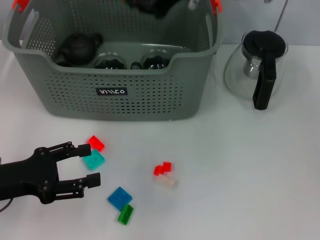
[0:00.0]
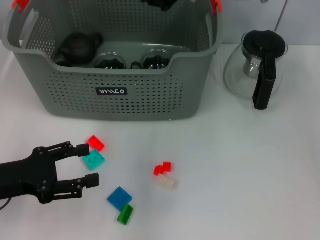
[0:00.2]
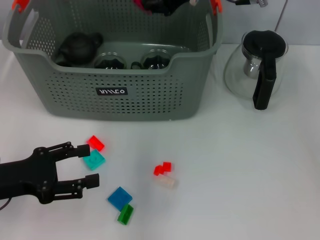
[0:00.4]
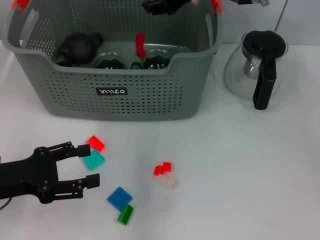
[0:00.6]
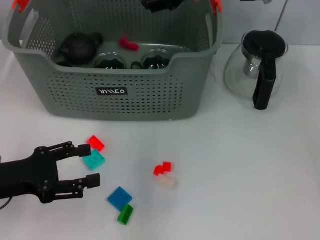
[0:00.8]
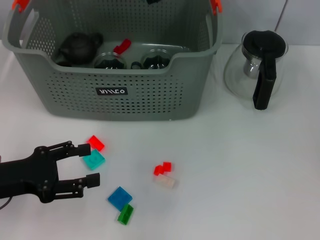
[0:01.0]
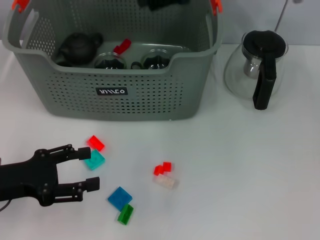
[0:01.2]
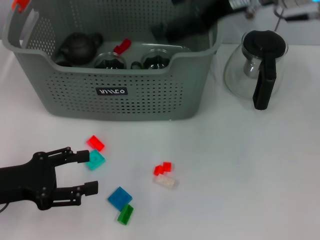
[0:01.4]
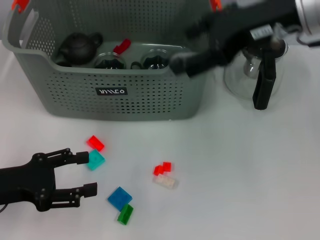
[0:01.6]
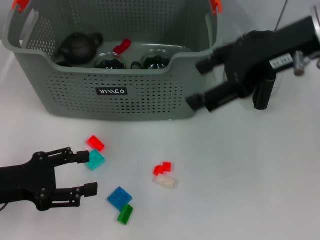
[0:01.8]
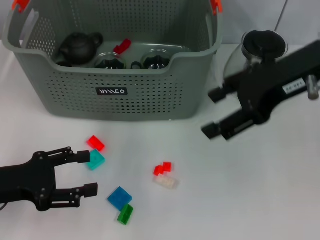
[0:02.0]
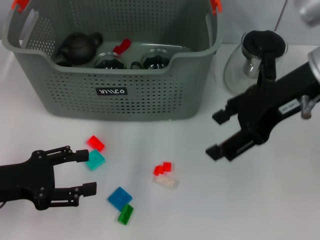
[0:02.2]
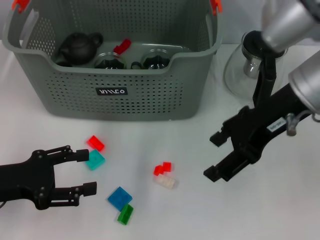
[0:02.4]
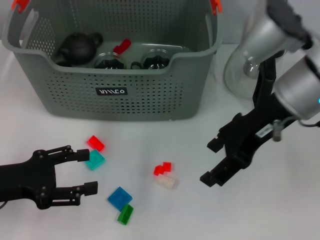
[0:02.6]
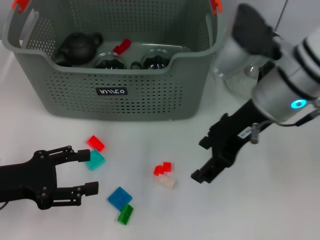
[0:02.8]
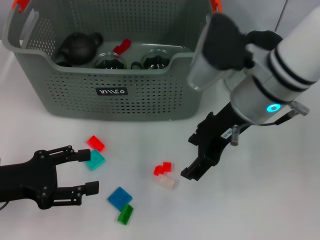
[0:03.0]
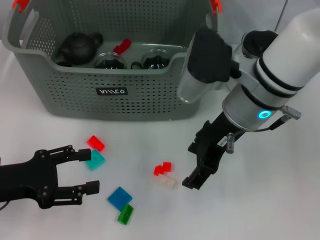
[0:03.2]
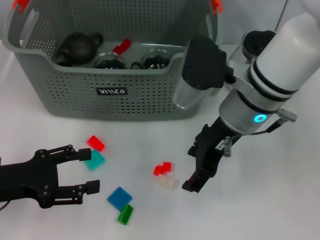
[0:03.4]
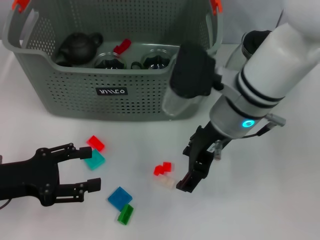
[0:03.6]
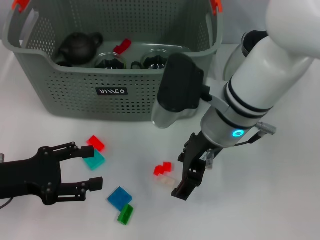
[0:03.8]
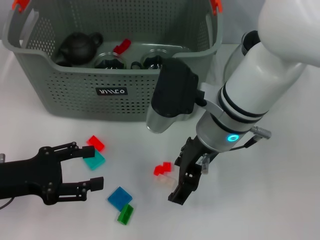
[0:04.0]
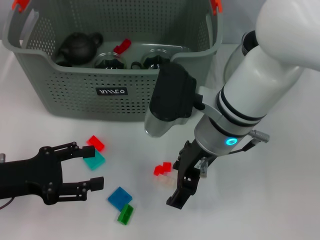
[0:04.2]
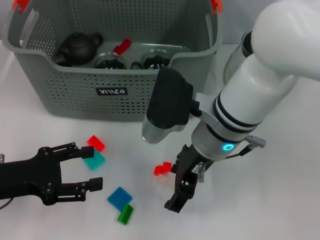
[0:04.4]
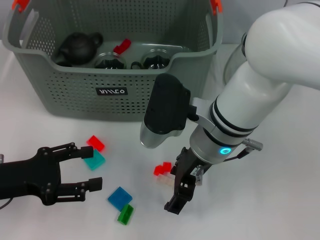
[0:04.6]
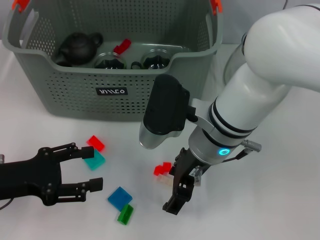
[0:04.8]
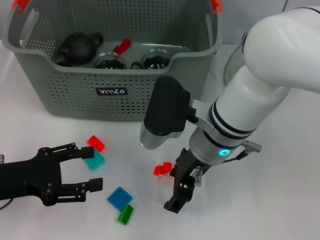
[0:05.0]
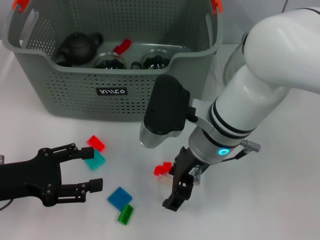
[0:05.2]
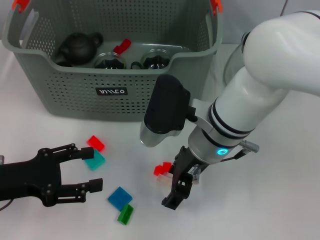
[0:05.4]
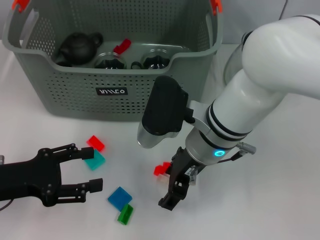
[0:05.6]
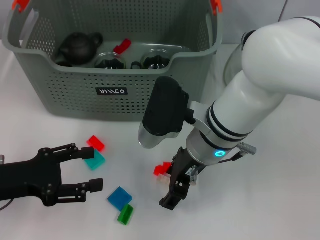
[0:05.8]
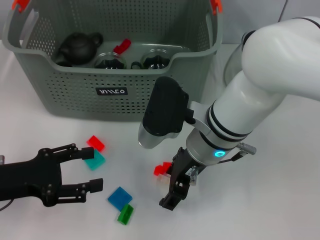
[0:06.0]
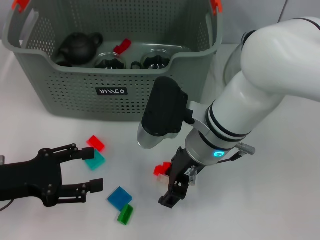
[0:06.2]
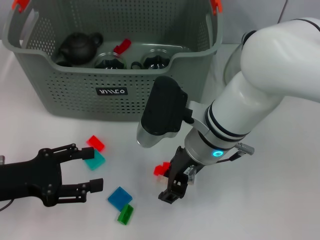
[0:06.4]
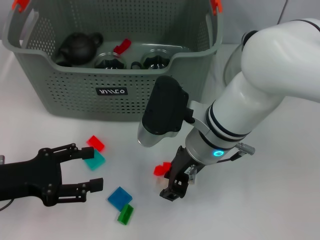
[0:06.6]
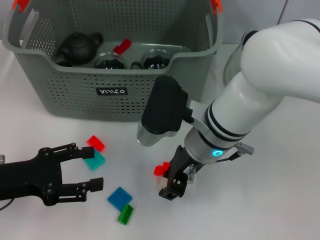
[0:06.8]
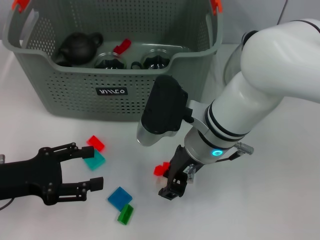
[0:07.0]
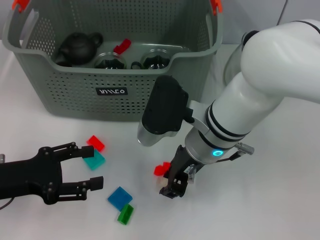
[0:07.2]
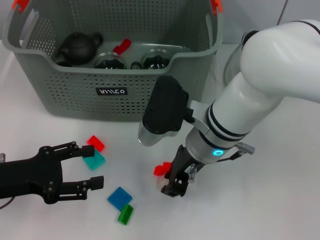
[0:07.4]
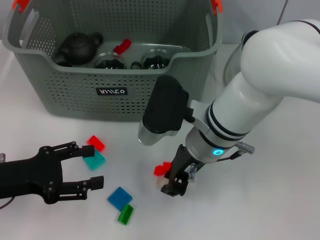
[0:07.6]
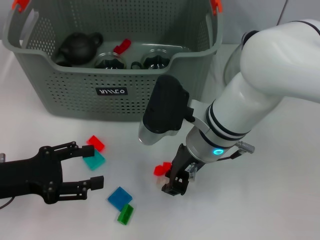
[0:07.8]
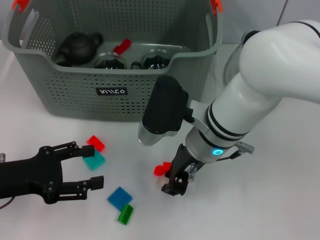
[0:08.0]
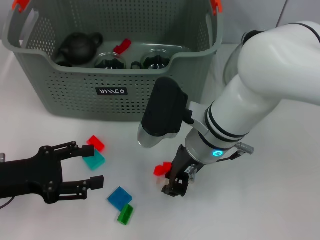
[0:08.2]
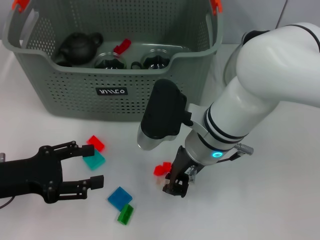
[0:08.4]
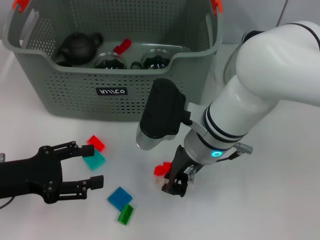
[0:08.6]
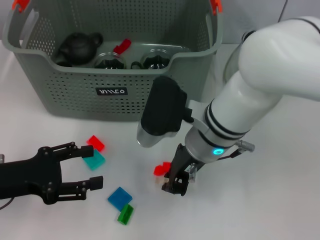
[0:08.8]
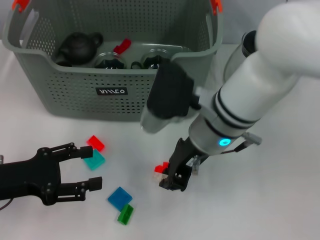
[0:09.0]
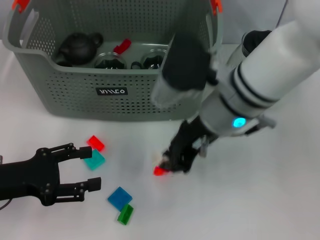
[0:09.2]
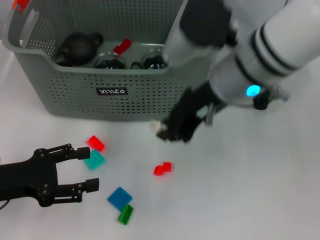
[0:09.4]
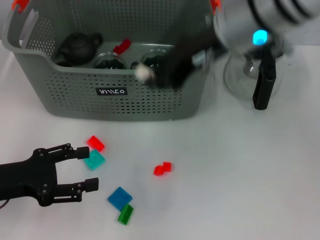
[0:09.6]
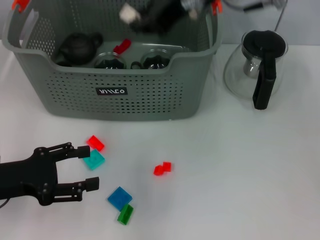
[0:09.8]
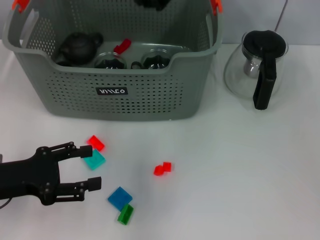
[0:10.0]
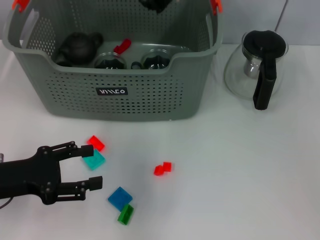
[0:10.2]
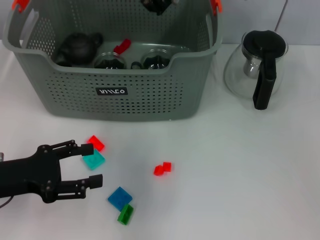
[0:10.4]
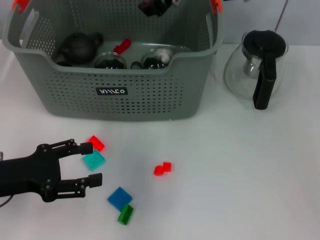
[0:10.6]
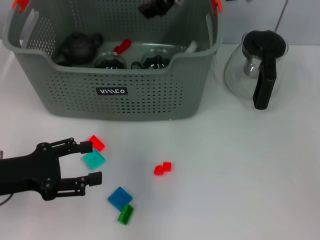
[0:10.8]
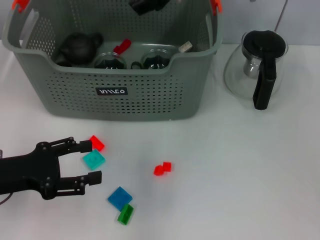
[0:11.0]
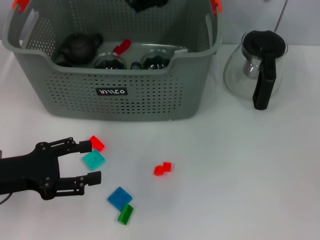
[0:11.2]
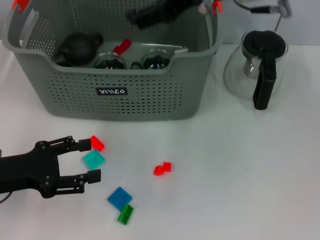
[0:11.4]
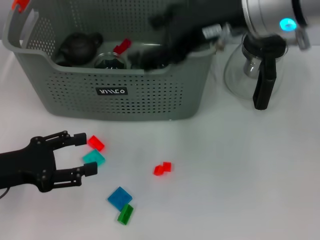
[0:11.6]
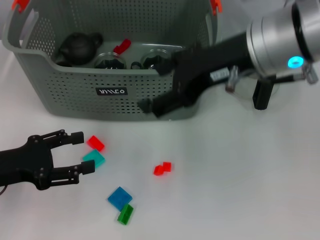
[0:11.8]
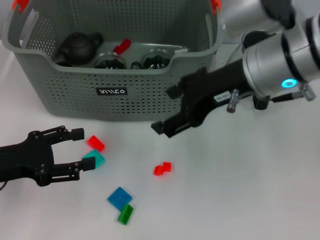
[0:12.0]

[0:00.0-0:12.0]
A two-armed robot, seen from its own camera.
Task of the whole recording: pick up the teacup on the table and place it into the storage bin, pick up the block on the table and place it into the storage bin.
Step, 0:01.0 to 0:08.4: Grasp the white block with right gripper.
Step, 0:08.6 to 0:10.8: Place the white block in the storage box with right gripper.
0:00.0 to 0:01.6: The right gripper heads to the right and backward, covering about 10 cm, and opens its fingers.
0:01.6 to 0:03.0: The right gripper goes roughly 10 cm downward and to the left.
0:03.0 to 0:04.4: The right gripper goes approximately 5 cm to the left.
0:04.4 to 0:06.0: The grippers make only small movements.
0:06.0 to 0:07.6: The right gripper closes up.
0:07.6 to 0:09.0: The grippers stay close to where they were, moving slightly.
0:09.0 to 0:10.4: The right gripper goes about 15 cm forward and upward.
0:10.4 to 0:12.0: The right gripper goes approximately 15 cm backward and to the right, and opens its fingers.

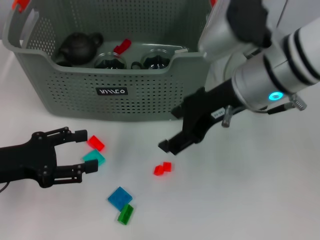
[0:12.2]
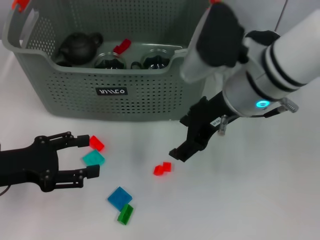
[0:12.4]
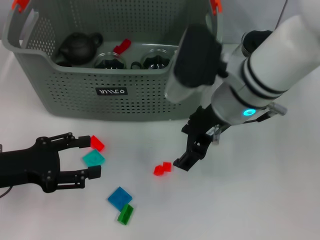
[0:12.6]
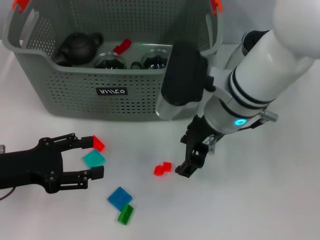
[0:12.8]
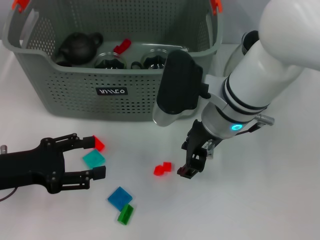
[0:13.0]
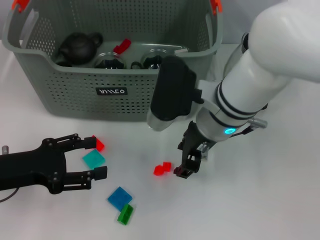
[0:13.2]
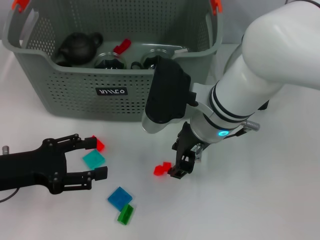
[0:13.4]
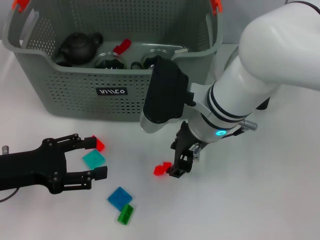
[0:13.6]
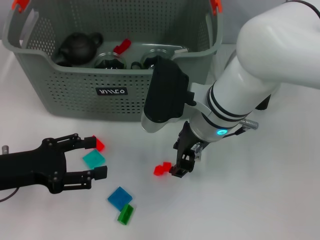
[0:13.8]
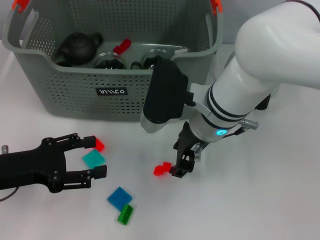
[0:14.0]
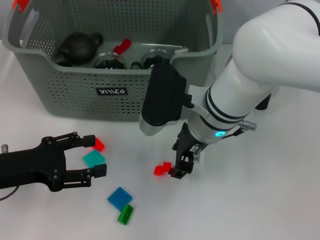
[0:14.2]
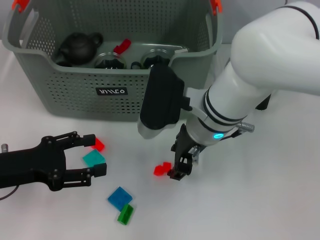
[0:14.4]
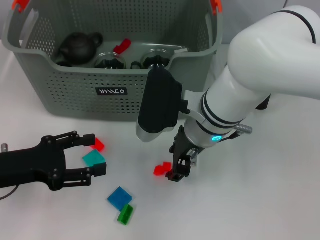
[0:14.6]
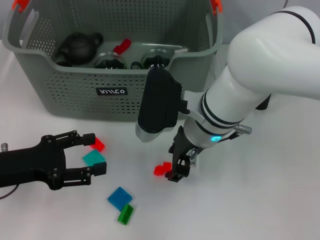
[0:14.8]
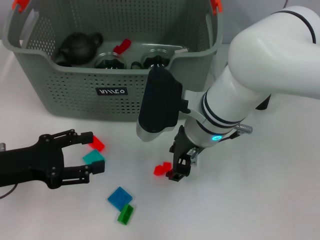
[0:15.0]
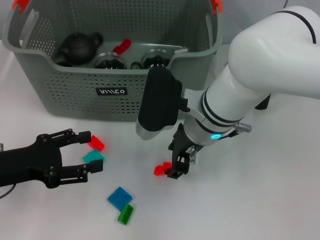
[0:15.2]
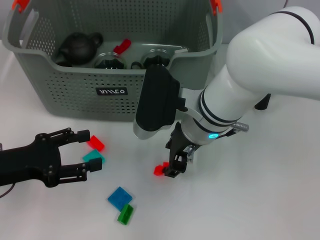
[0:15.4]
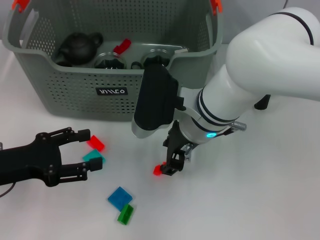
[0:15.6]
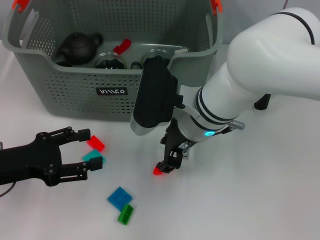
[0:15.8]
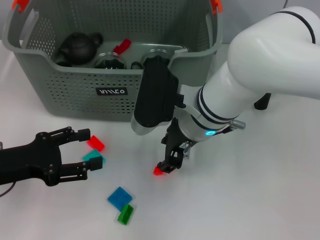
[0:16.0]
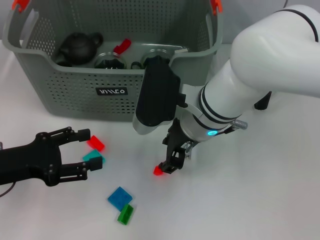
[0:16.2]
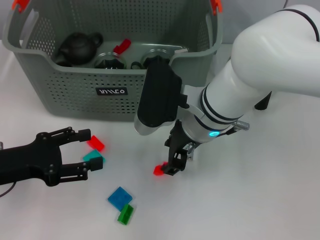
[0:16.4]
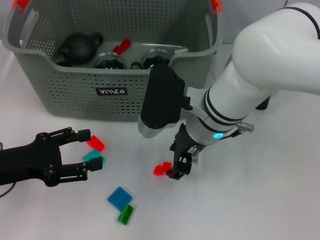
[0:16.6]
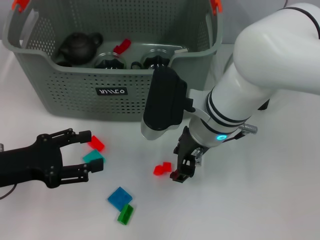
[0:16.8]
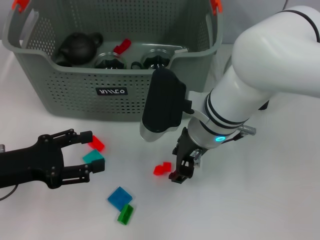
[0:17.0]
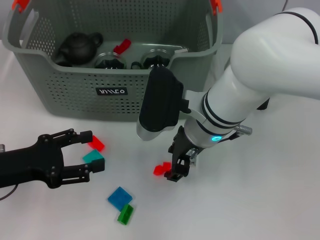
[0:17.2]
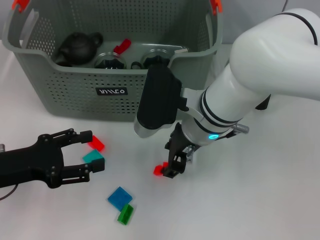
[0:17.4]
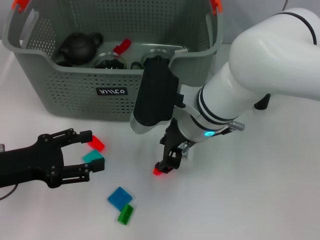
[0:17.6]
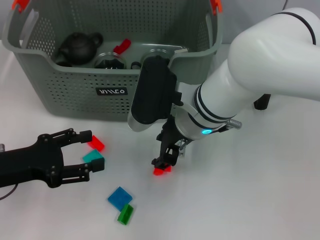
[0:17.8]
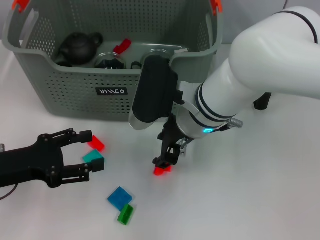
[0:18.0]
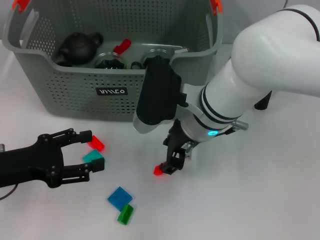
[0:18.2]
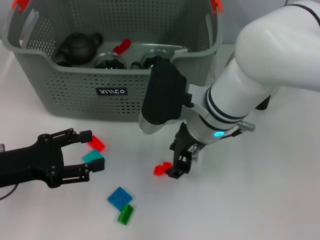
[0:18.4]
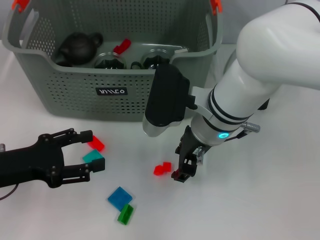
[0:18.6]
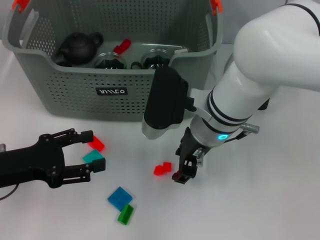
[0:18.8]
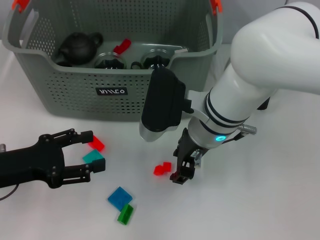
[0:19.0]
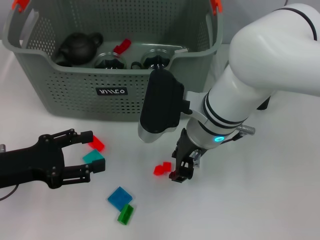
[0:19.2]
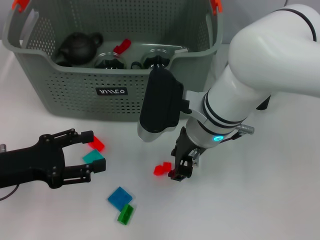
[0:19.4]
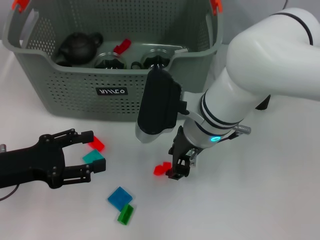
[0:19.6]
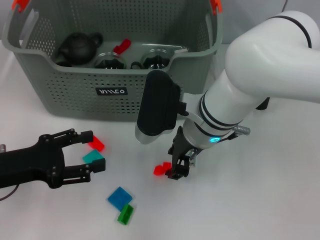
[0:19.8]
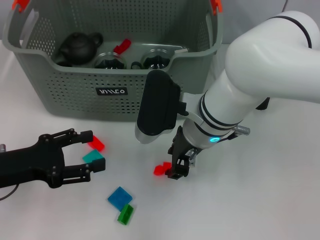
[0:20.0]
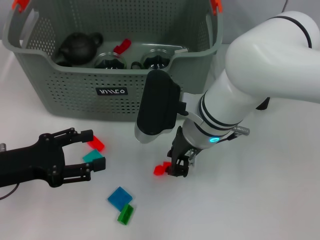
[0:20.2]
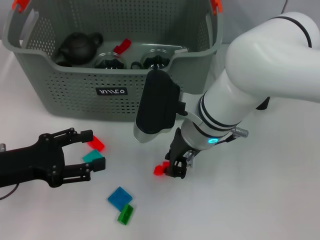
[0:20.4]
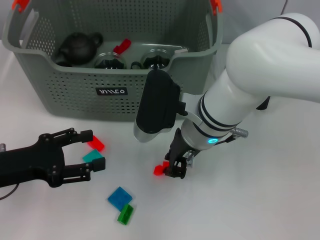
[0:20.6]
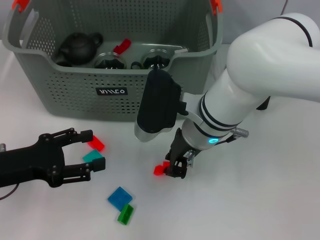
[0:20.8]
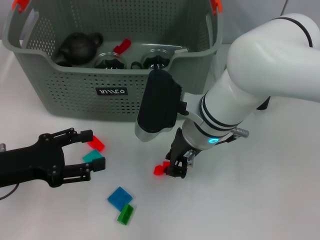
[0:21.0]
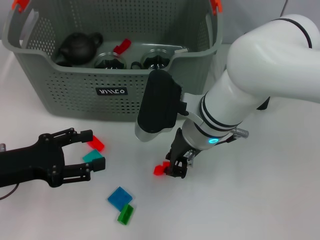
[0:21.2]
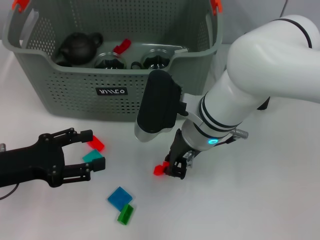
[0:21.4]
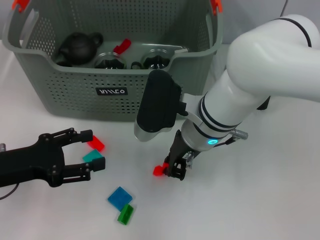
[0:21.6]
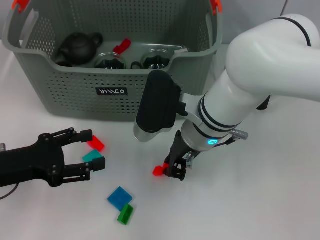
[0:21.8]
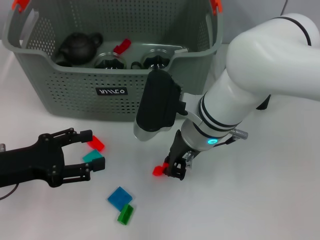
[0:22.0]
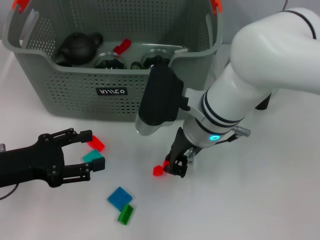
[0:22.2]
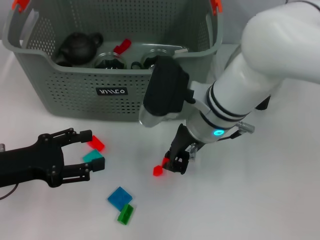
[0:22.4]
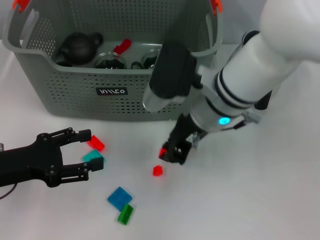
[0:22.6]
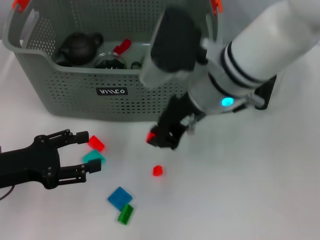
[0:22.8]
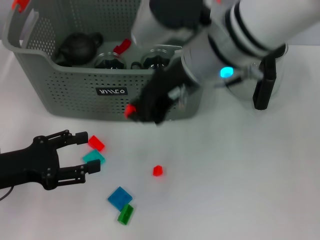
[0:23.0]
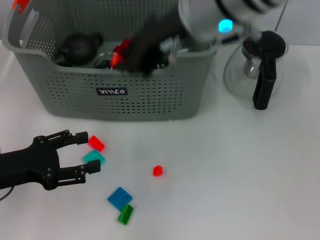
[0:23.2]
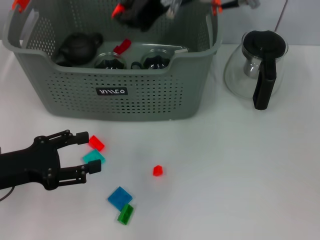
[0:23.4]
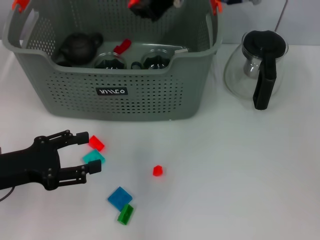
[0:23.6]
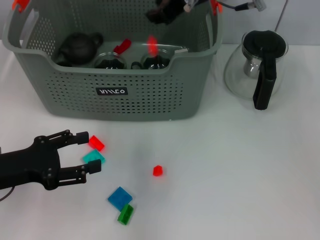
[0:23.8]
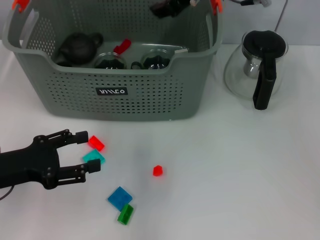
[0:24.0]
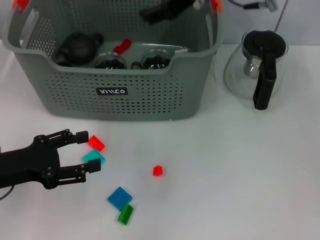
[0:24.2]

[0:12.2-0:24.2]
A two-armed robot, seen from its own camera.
Task of the whole recording: pick up the teacup on the table and place it into the storage bin, pick up the block on the table and place it into the storage bin.
Step, 0:12.2 to 0:22.0: Grasp the orange block with right gripper.
Step, 0:22.2 to 0:23.8: Place the orange block in the storage box with right gripper.
0:12.2 to 0:13.8: The right gripper is displaced downward and to the left by about 10 cm.
0:13.8 to 0:15.2: The two grippers keep their place.
0:15.2 to 0:16.6: Both grippers stay put.
0:16.6 to 0:19.8: The grippers move only a little.
0:19.8 to 0:21.2: Both grippers stay about where they are.
0:21.2 to 0:22.6: The grippers stay close to where they were, moving slightly.
0:22.6 to 0:24.2: The right gripper goes roughly 15 cm upward and forward, and opens its fingers.
